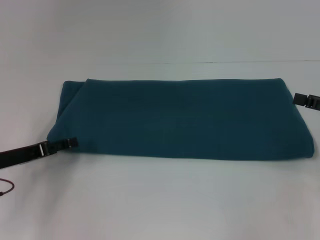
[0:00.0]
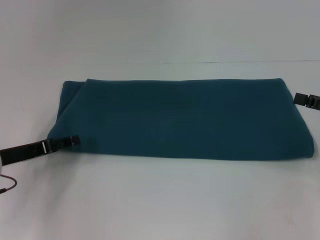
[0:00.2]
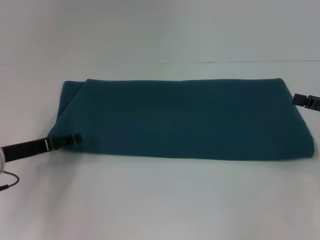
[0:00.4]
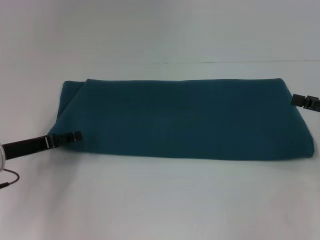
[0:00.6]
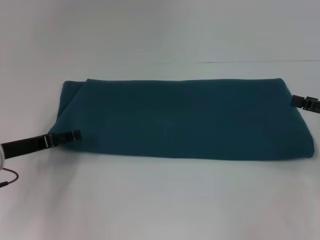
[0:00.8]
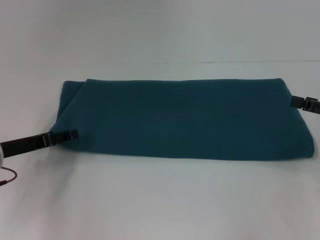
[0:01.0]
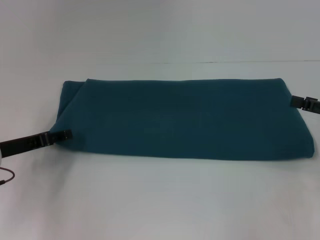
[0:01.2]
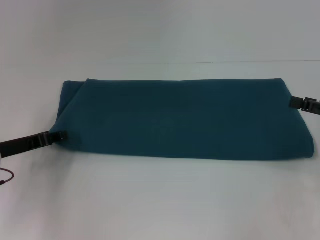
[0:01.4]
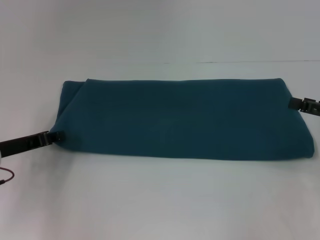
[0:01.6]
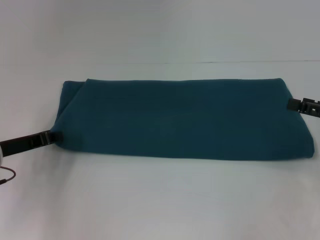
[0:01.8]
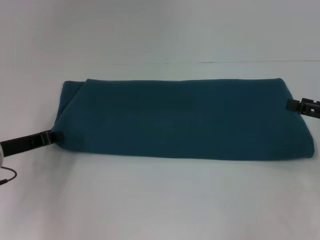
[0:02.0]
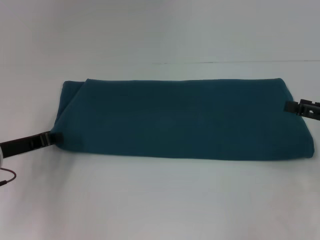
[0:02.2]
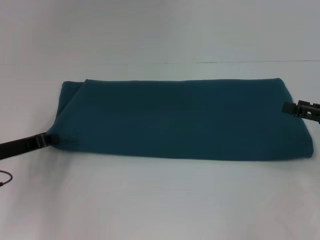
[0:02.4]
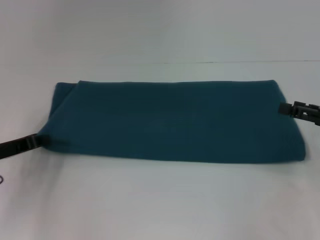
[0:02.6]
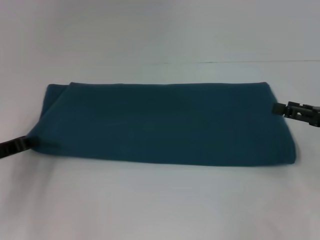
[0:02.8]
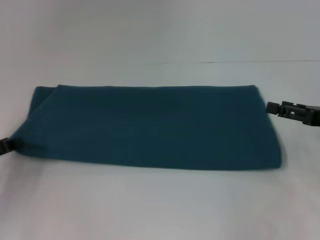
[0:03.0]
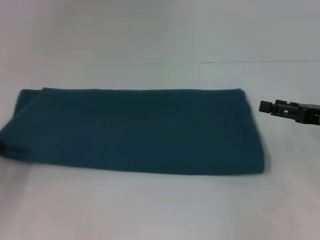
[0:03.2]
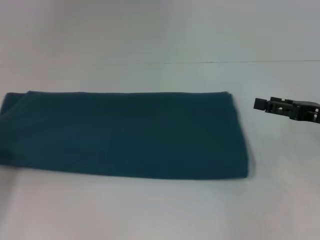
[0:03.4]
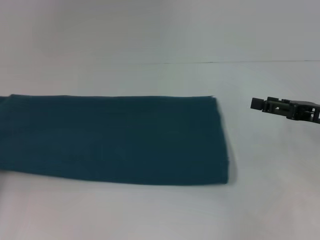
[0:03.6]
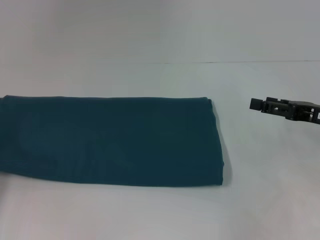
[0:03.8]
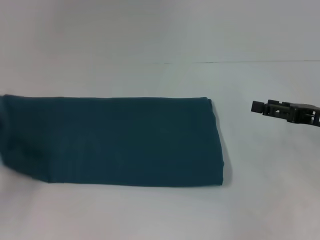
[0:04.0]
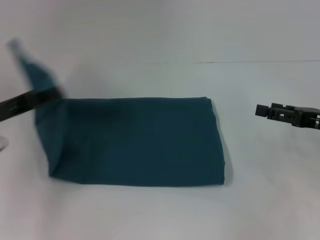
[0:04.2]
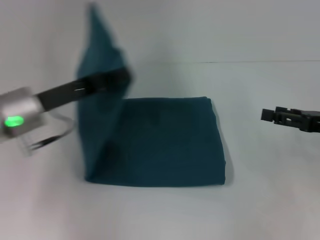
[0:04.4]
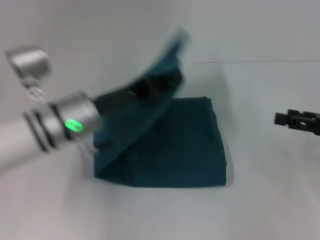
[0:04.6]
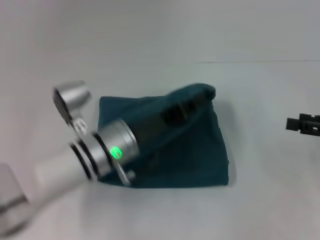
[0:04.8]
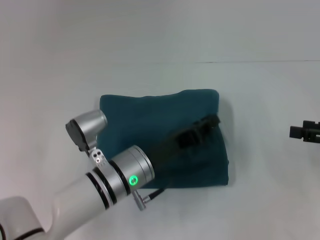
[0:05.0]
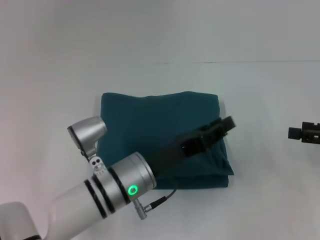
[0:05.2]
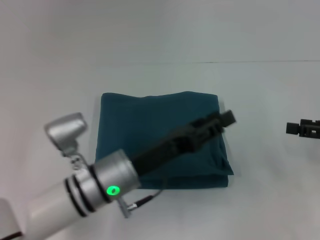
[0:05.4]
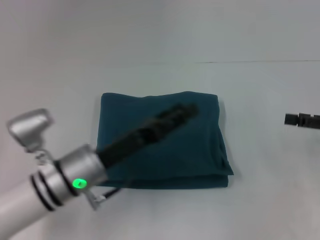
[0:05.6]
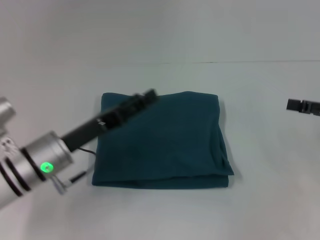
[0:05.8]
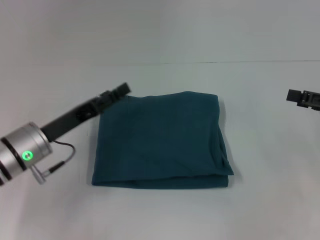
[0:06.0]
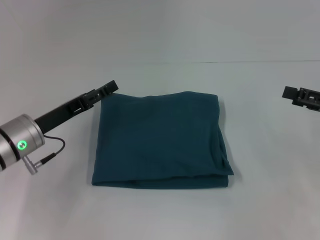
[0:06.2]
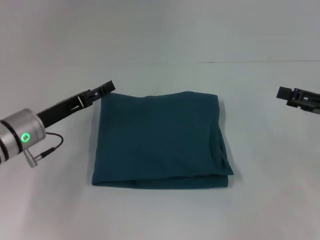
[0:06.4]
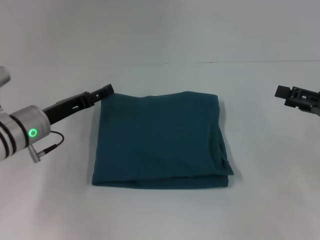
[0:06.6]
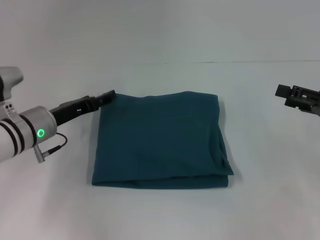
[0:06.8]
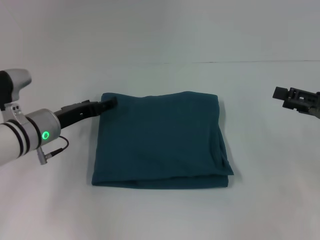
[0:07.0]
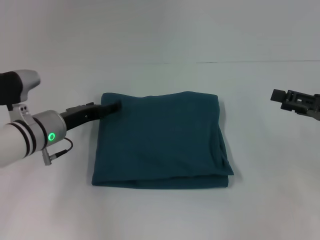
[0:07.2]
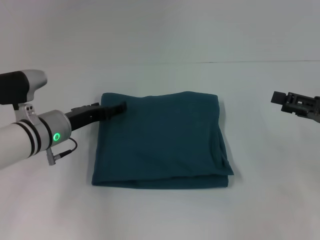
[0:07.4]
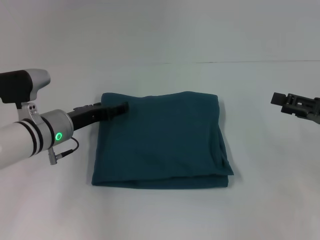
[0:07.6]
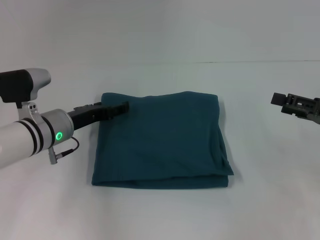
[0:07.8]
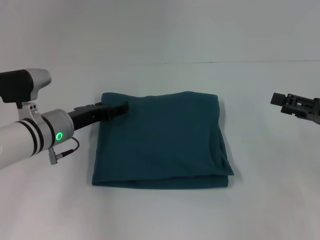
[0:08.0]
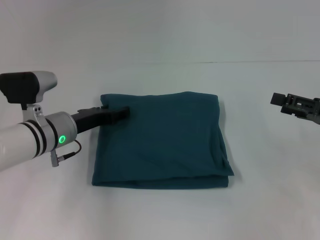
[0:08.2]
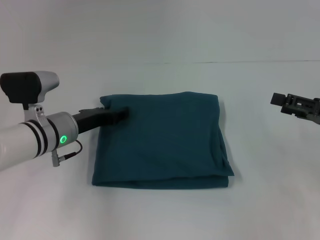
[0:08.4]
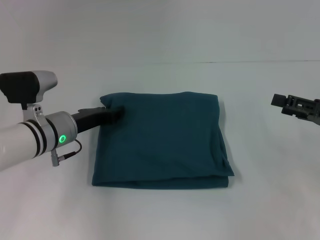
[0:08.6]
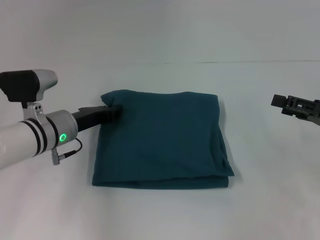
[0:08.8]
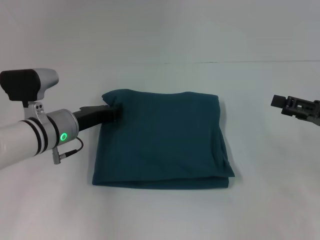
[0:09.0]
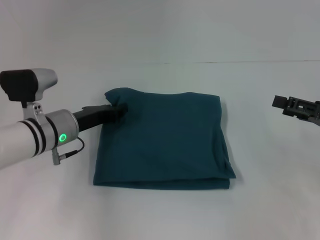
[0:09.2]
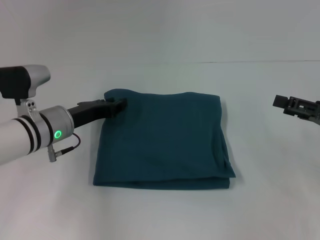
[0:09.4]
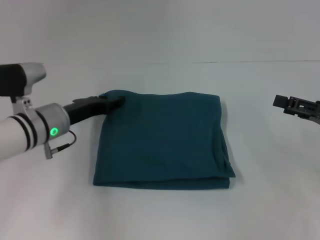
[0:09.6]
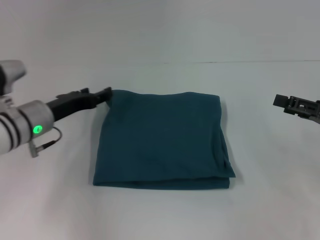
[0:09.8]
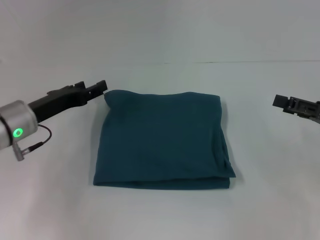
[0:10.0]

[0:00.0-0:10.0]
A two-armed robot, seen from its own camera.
Step, 0:00.0 to 0:05.2: Fold the clothes to the left.
0:00.0 to 0:01.4: The grippers stay close to where they were, moving slightly.
0:01.4 to 0:02.8: The left gripper closes its fingers.
0:02.8 to 0:04.2: The left gripper heads upward, covering roughly 5 cm, and goes to the left and returns, about 10 cm each way.
0:04.2 to 0:05.8: The left gripper is displaced to the right and downward by about 15 cm, and opens up.
0:05.8 to 0:07.2: The left gripper moves forward, about 5 cm.
0:07.2 to 0:08.6: The left gripper closes up.
0:08.6 to 0:10.0: The left gripper shifts about 5 cm to the left, and closes and opens again.

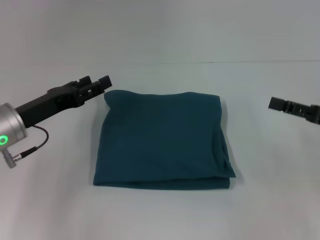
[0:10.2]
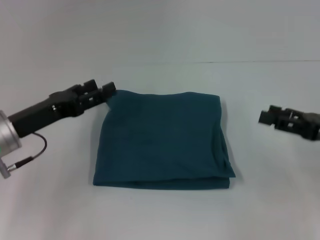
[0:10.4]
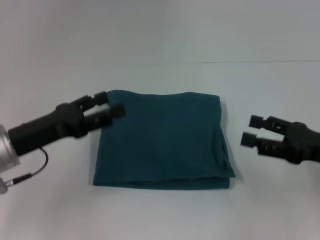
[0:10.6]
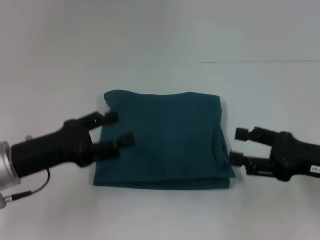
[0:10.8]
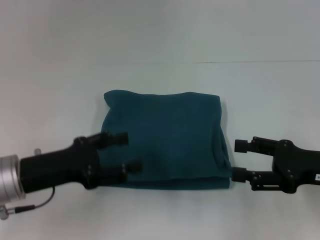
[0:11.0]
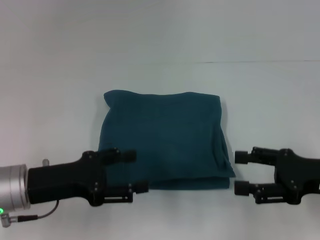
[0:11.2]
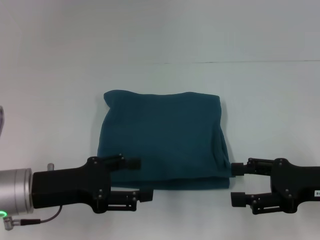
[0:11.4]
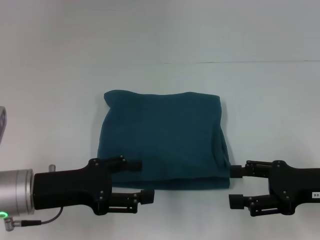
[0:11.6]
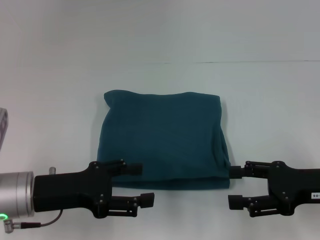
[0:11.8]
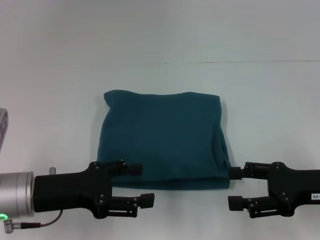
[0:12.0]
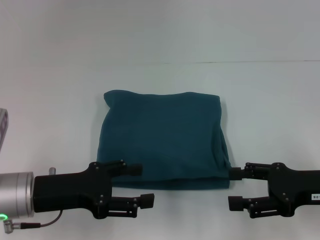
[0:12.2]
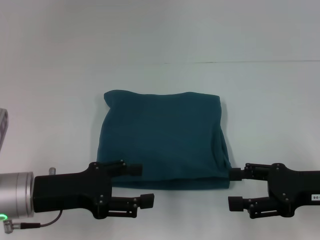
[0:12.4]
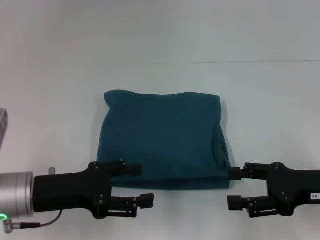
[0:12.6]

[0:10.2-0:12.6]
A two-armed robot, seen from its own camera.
0:10.2 to 0:11.4: The right gripper heads to the left, covering some 5 cm; the left gripper travels backward by roughly 5 cm.
0:11.4 to 0:12.6: Both grippers stay put.

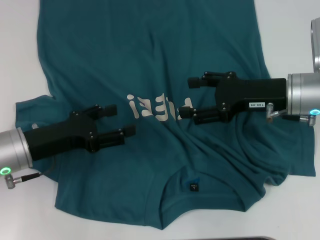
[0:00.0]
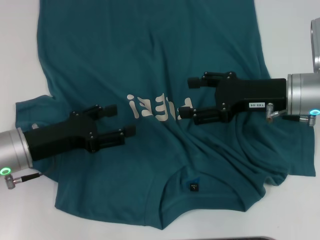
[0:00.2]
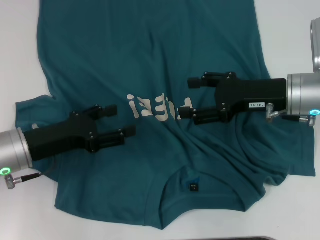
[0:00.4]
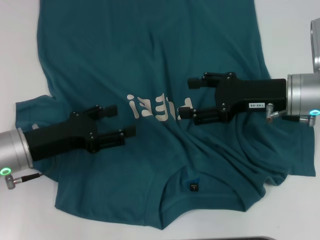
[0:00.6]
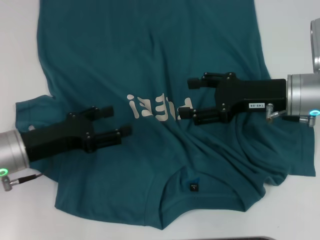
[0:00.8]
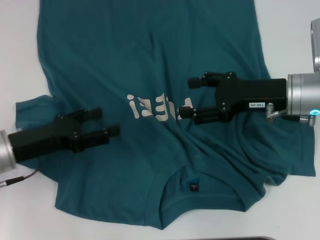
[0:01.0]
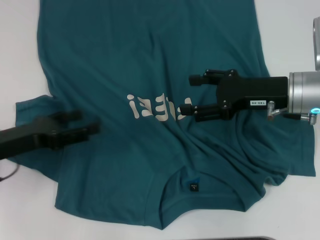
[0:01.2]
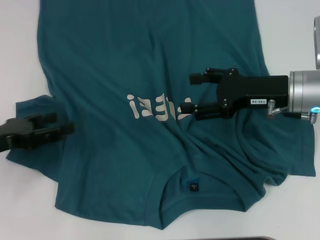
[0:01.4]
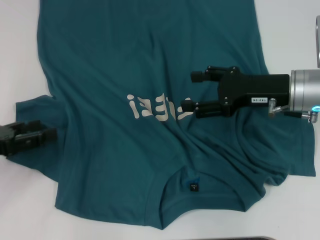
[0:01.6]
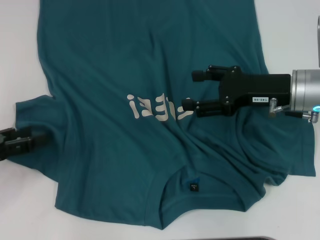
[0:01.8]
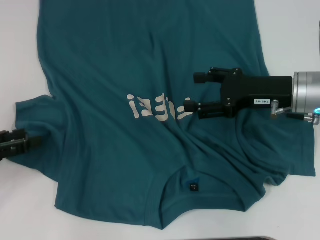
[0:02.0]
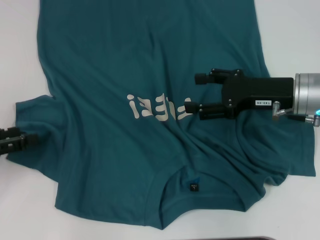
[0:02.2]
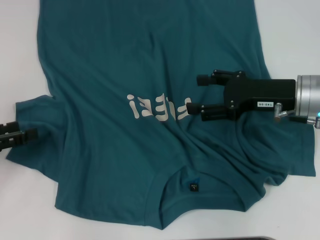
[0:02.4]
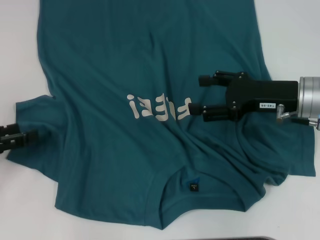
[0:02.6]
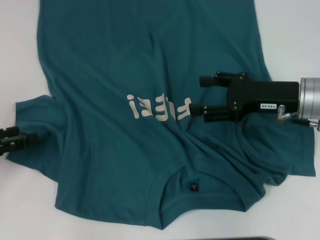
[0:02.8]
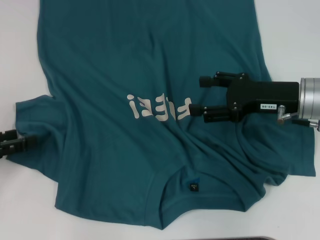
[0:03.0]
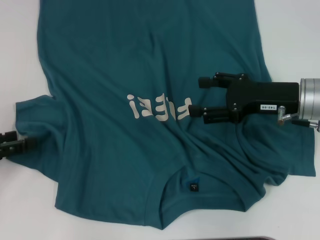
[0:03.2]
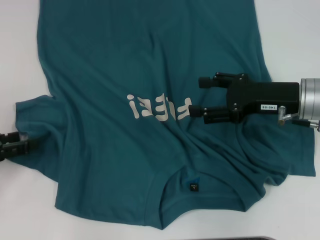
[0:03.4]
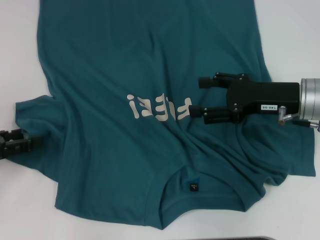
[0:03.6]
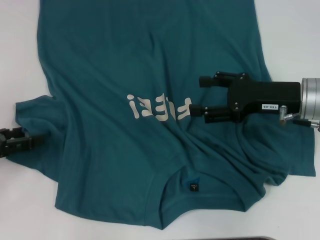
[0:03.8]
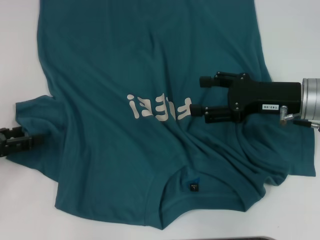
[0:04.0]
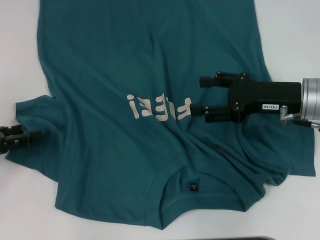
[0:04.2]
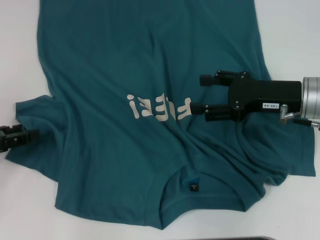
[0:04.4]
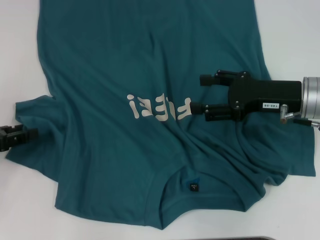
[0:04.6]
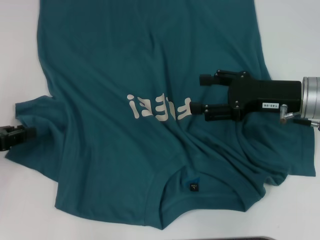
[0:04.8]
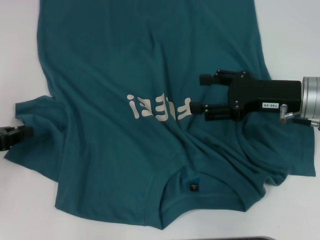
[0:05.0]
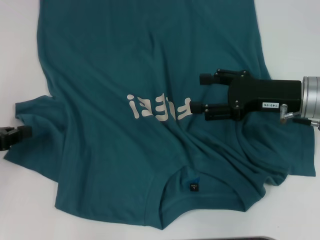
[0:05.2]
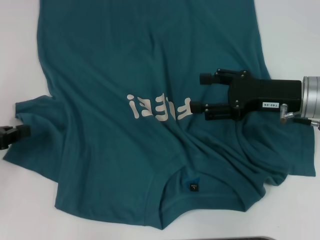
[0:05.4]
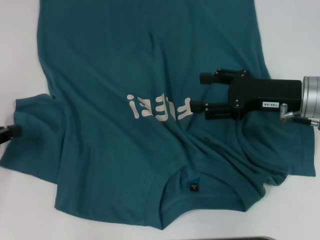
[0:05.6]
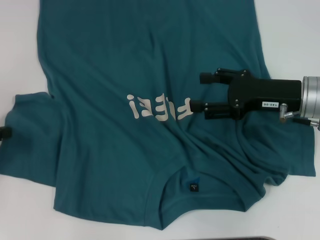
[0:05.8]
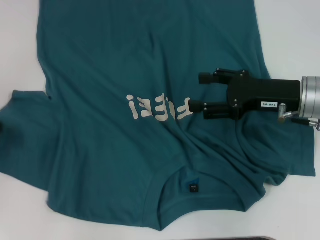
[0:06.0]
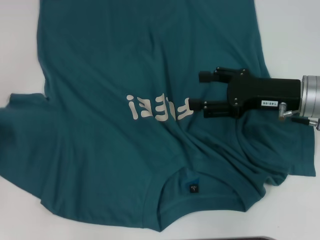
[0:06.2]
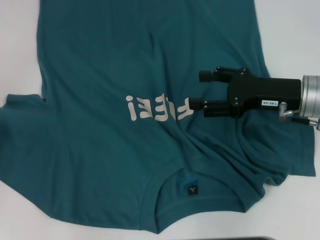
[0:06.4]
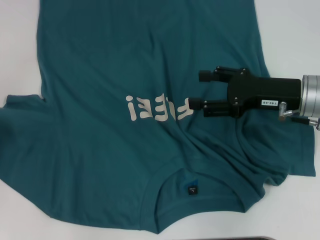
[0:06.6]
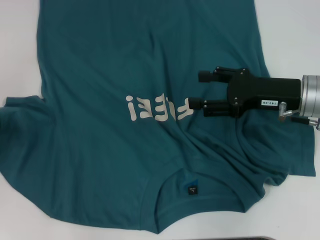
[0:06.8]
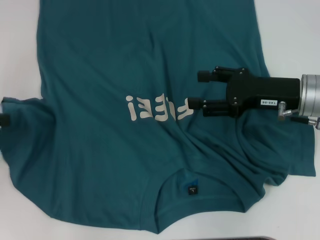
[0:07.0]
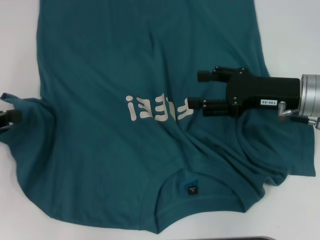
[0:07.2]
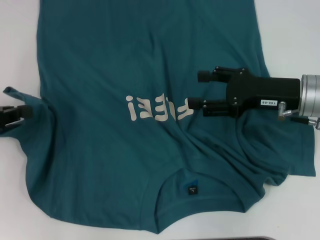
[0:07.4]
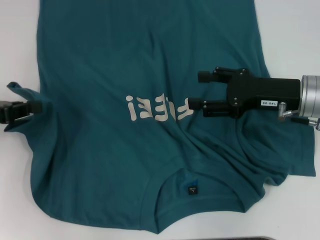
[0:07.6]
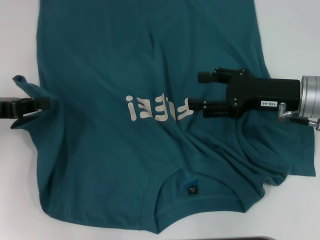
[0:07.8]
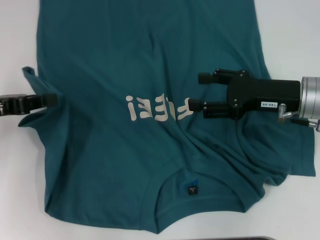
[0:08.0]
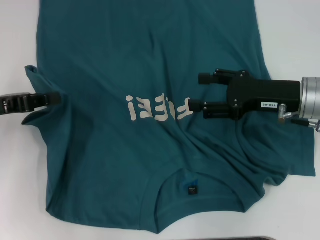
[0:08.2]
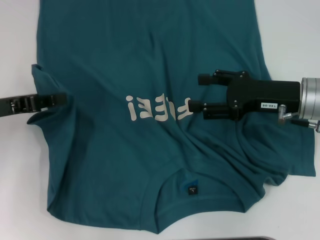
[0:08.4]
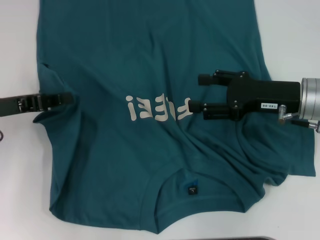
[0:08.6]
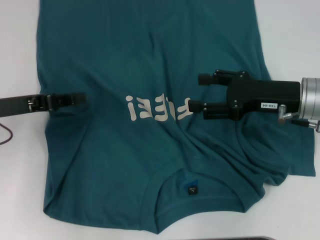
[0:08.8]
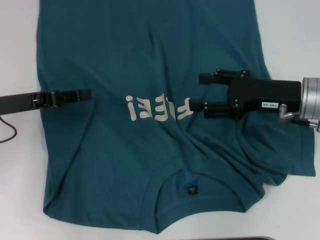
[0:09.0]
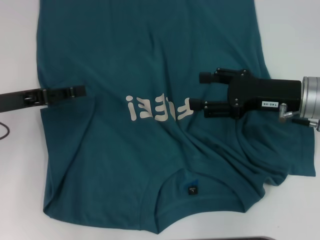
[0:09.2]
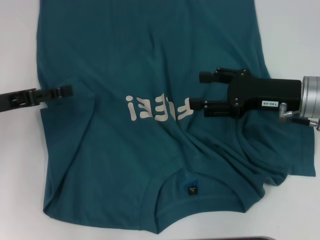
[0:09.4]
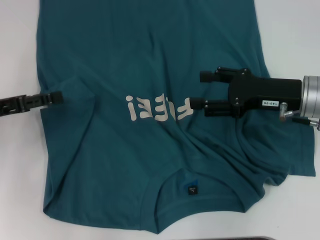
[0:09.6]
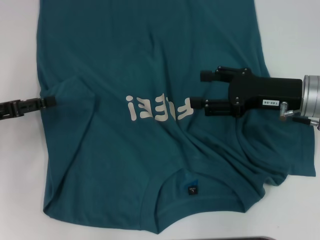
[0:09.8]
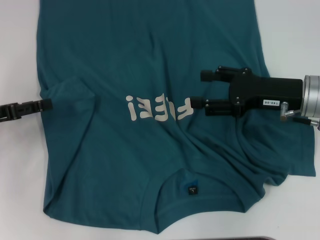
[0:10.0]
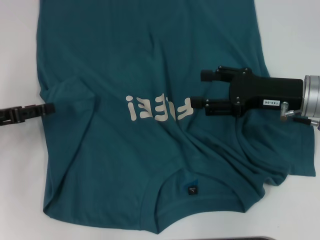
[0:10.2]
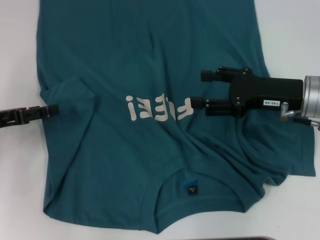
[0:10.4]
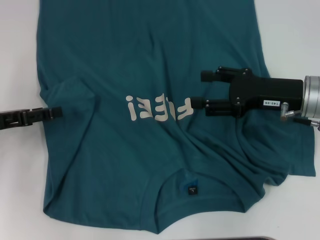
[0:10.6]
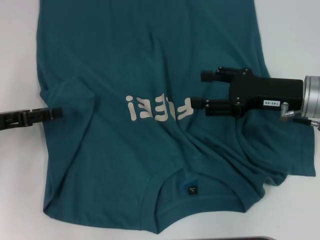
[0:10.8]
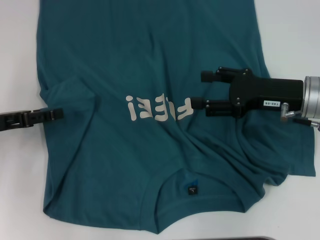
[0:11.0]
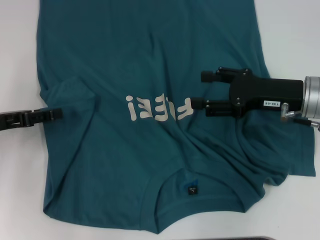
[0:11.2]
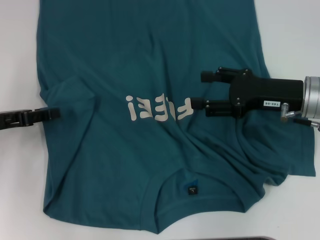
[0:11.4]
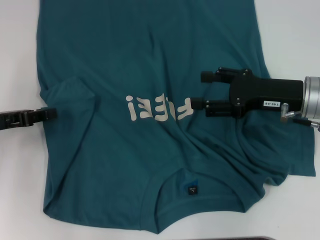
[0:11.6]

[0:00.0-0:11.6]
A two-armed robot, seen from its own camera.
0:00.0 to 0:01.4: The left gripper is displaced to the left by about 10 cm.
0:01.4 to 0:02.8: The grippers stay close to where they were, moving slightly.
0:02.8 to 0:04.4: Both grippers stay put.
0:04.4 to 0:05.8: The left gripper closes its fingers.
0:05.8 to 0:07.2: There are only small adjustments of the grippers.
0:07.2 to 0:08.8: The left gripper moves to the right, approximately 10 cm.
0:08.8 to 0:10.2: The left gripper moves roughly 5 cm, and opens up.
0:10.2 to 0:11.6: The two grippers keep their place.
